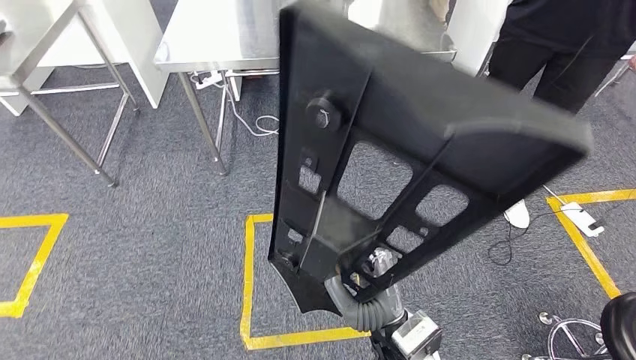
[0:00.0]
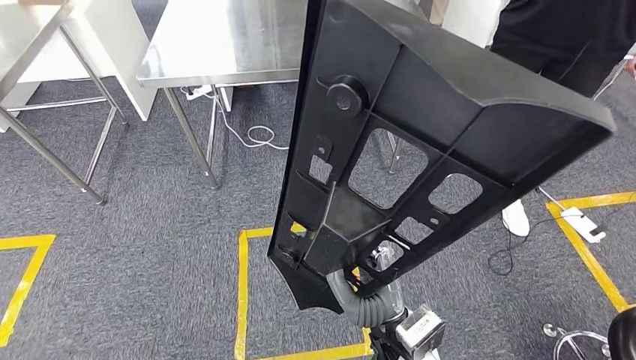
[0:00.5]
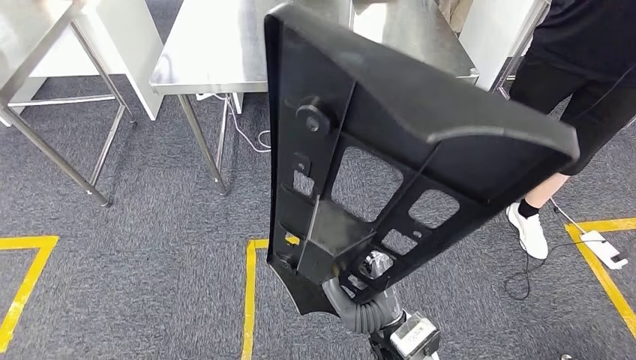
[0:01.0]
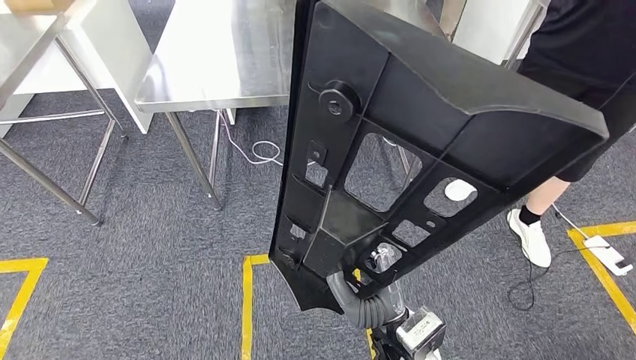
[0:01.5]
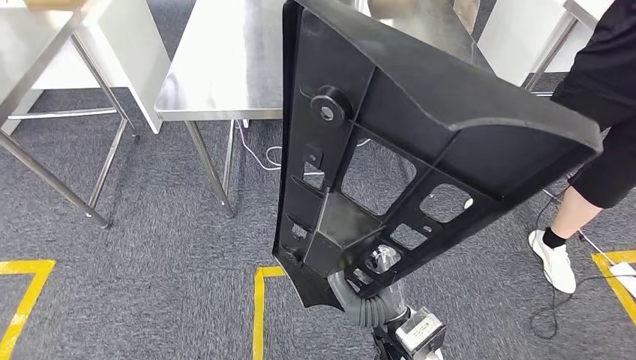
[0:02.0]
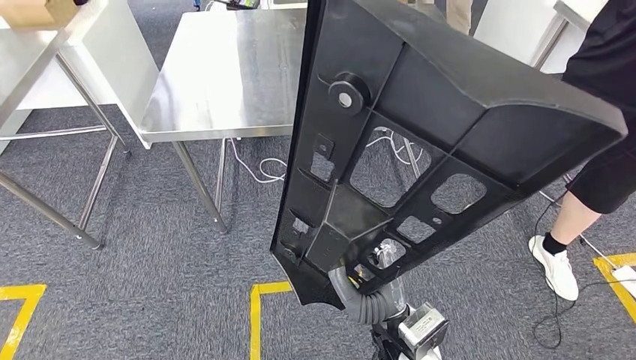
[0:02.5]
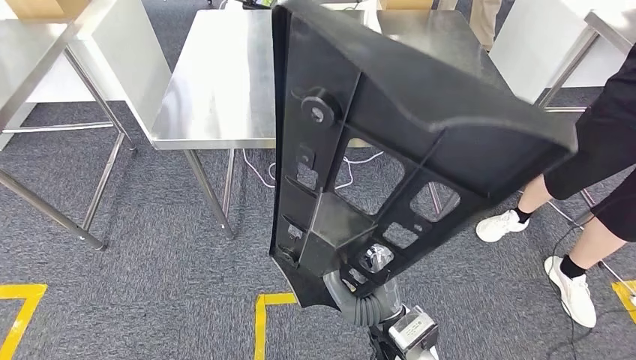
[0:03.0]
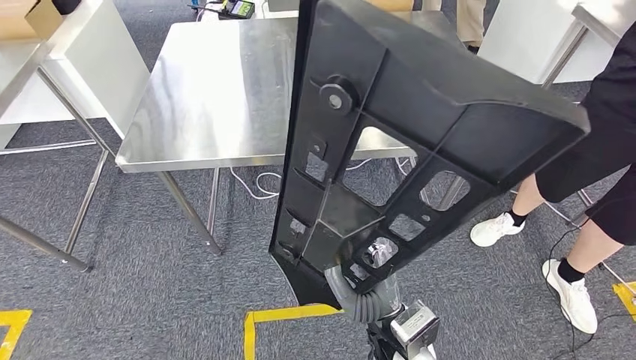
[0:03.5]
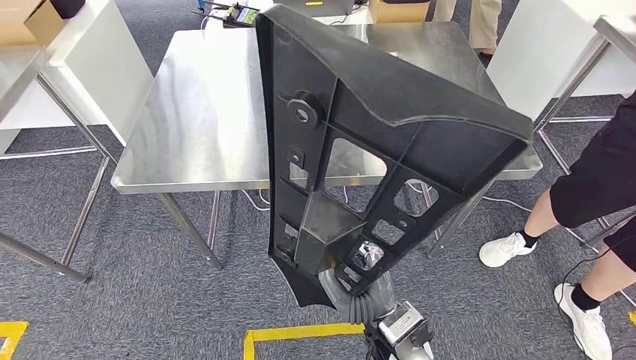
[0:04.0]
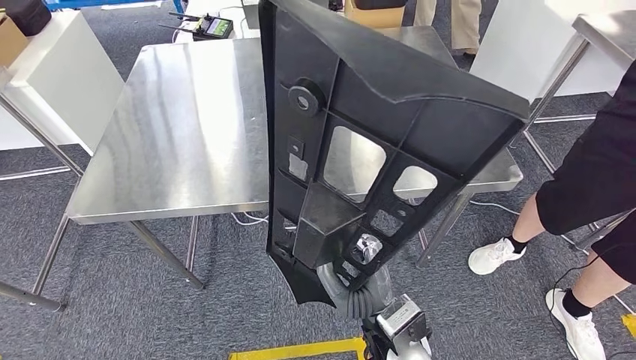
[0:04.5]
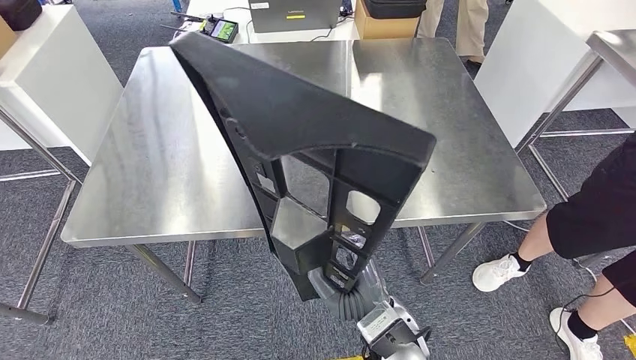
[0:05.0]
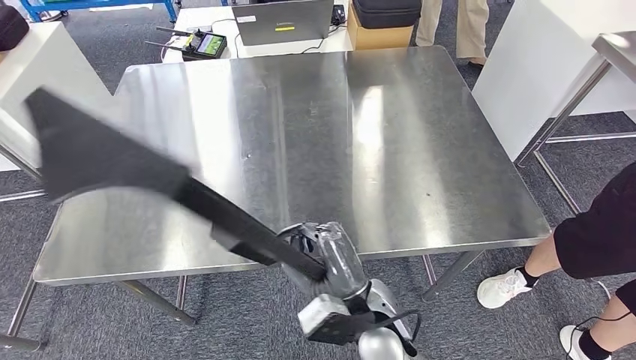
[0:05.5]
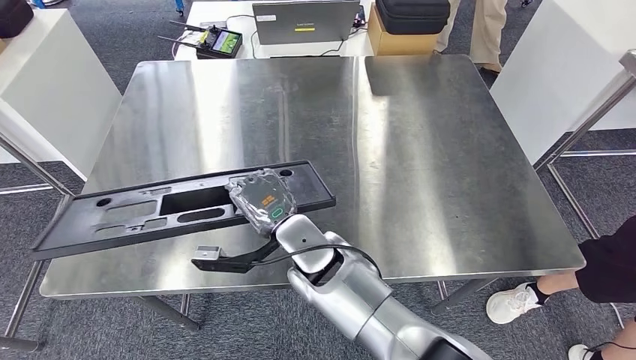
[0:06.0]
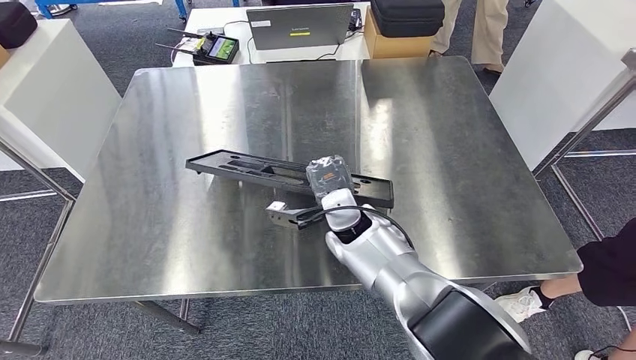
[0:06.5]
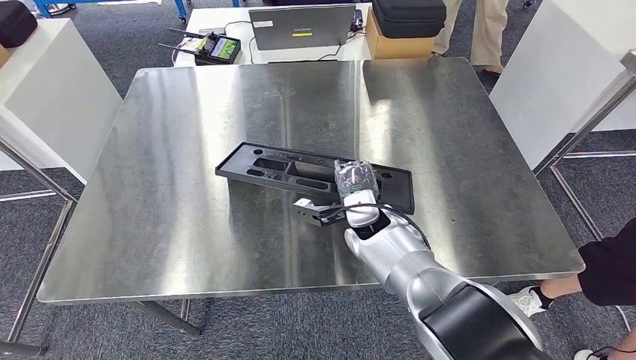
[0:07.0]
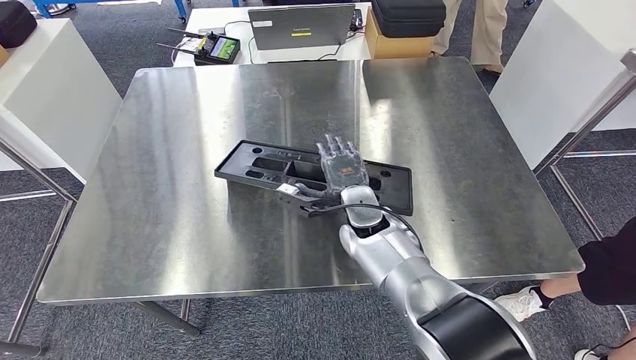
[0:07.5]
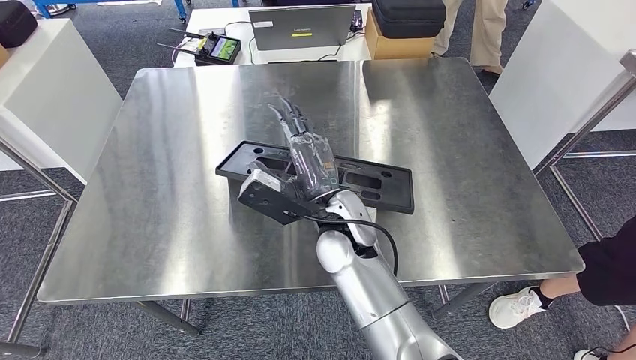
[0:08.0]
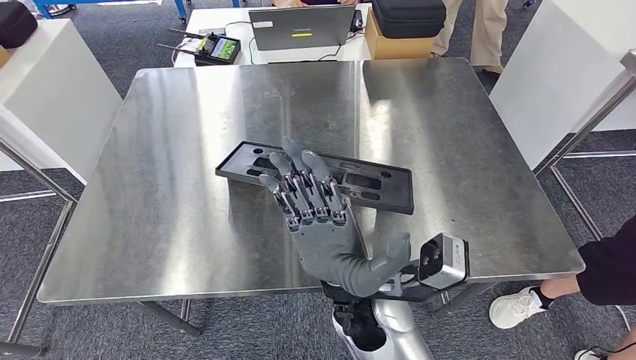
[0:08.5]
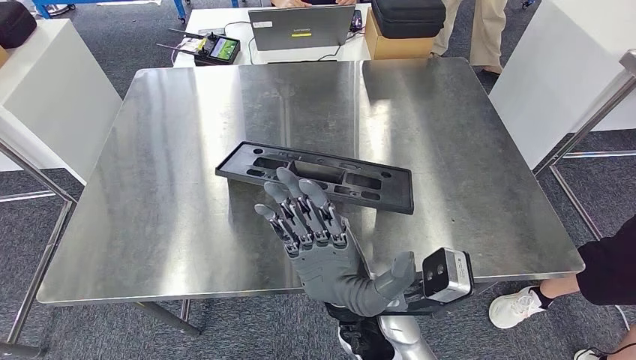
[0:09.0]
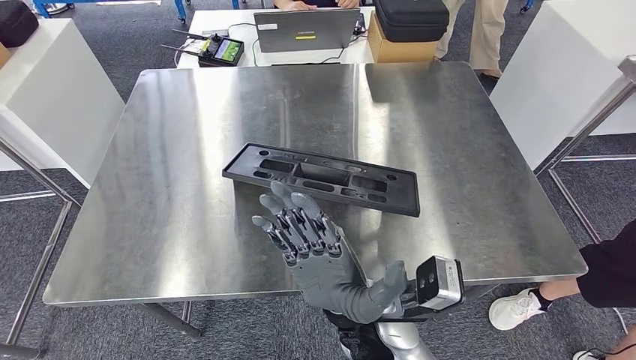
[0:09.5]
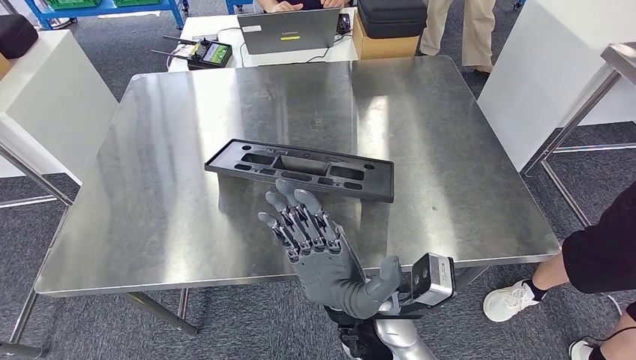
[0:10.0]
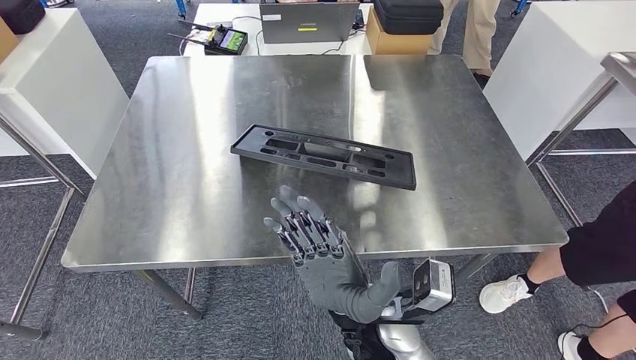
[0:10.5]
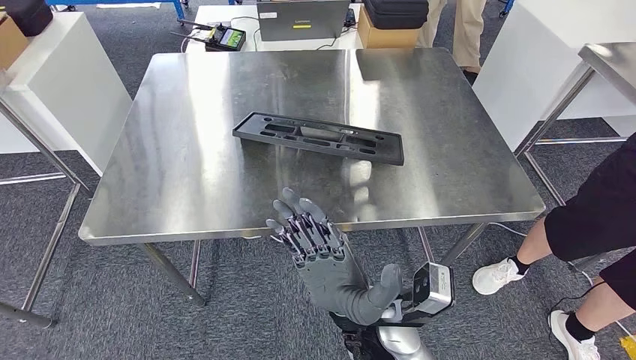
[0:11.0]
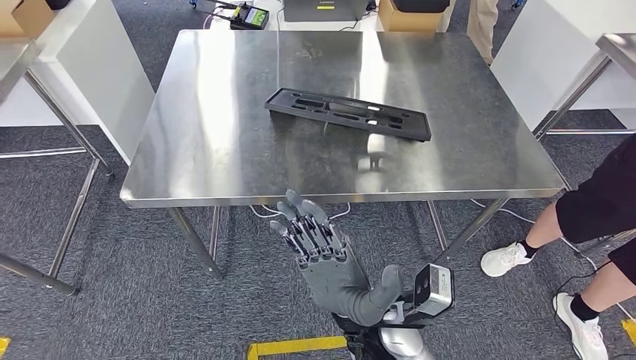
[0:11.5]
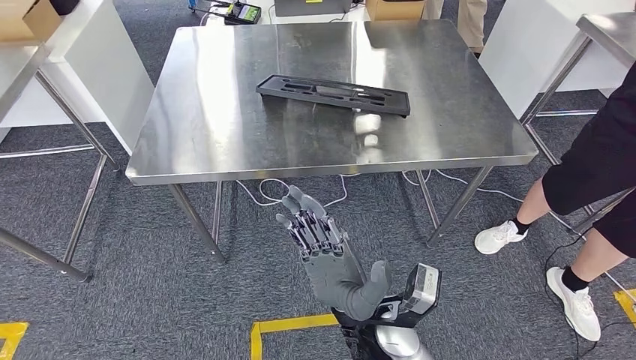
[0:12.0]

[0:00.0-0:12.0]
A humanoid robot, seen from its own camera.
Step, 0:00.0 to 0:04.5: Move the large parts to the workbench.

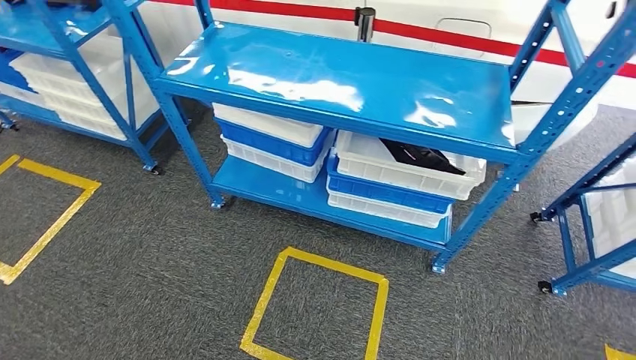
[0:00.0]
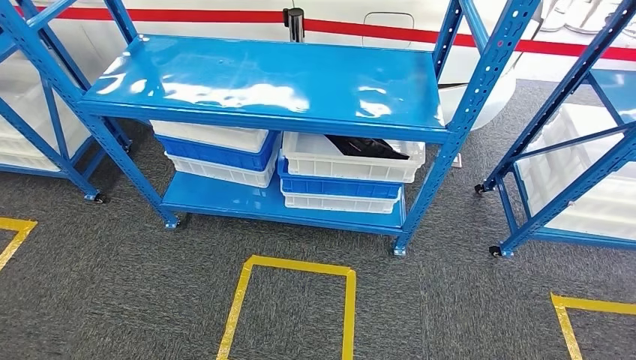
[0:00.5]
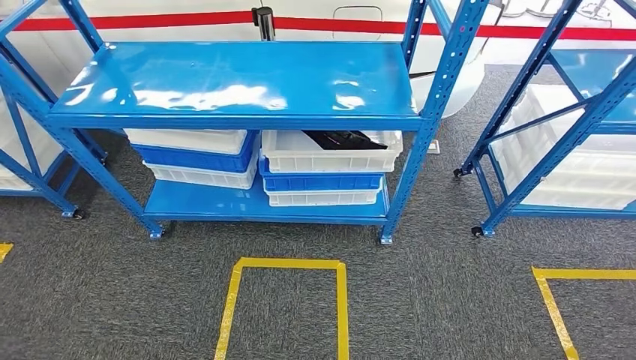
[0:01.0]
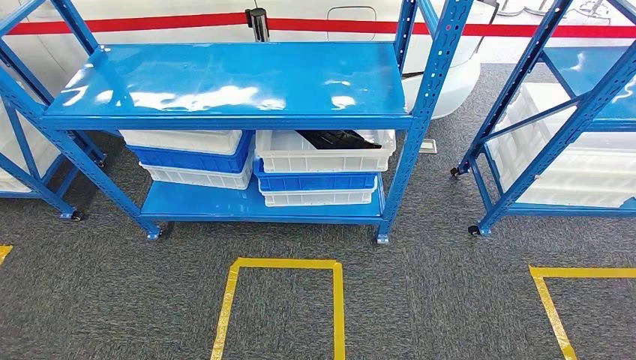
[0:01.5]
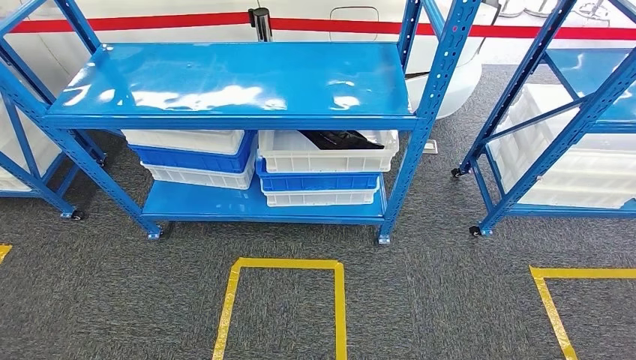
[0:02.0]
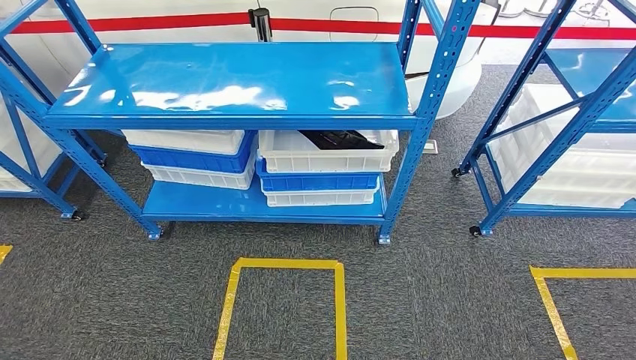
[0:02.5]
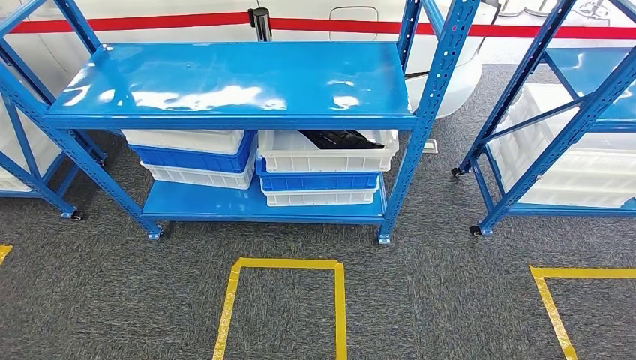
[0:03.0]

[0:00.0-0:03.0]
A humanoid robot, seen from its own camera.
Step, 0:00.0 to 0:03.0: Return to the initial position at the shelf.
0:01.5 to 0:03.0: The right hand ends up approximately 5 cm from where it was.
